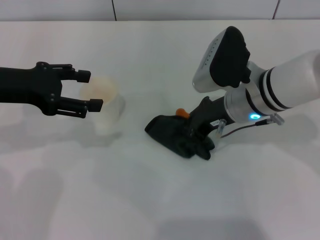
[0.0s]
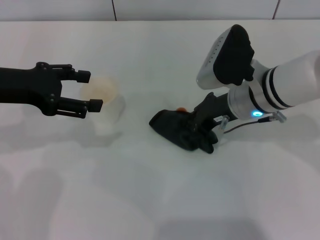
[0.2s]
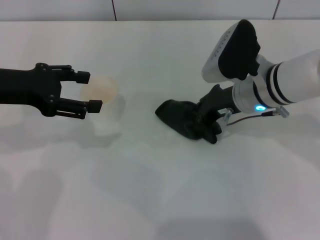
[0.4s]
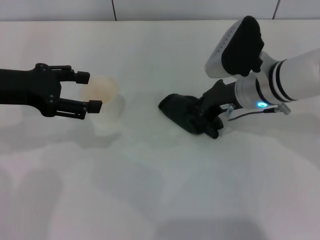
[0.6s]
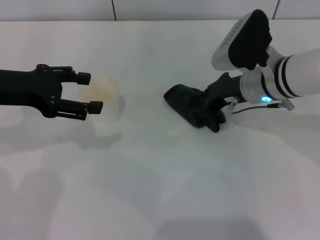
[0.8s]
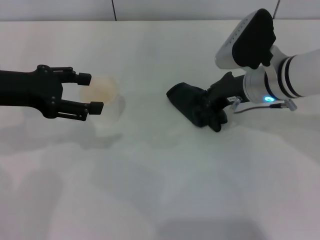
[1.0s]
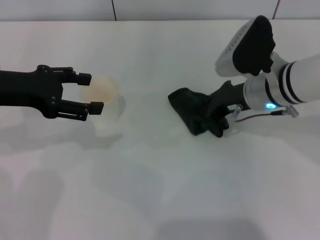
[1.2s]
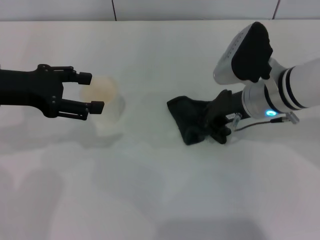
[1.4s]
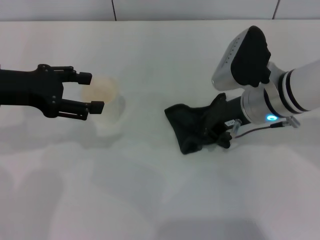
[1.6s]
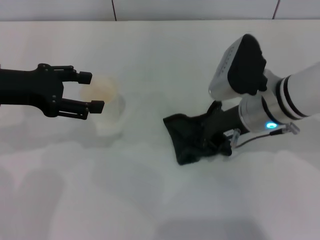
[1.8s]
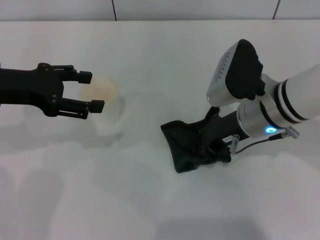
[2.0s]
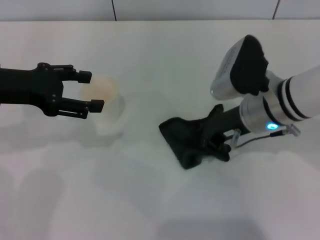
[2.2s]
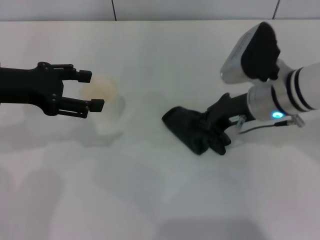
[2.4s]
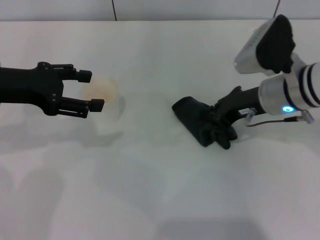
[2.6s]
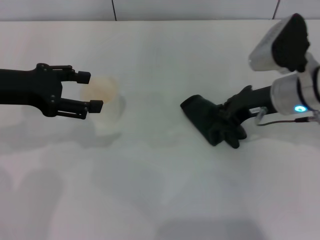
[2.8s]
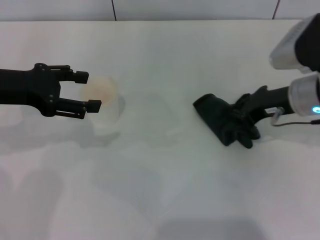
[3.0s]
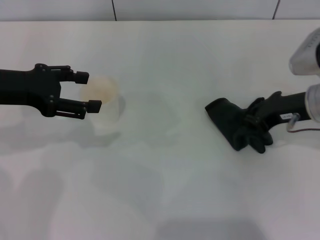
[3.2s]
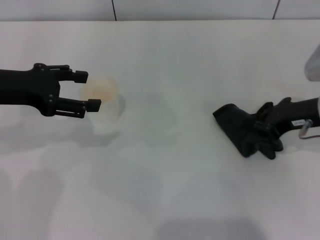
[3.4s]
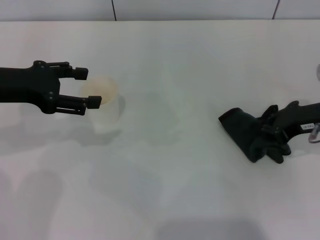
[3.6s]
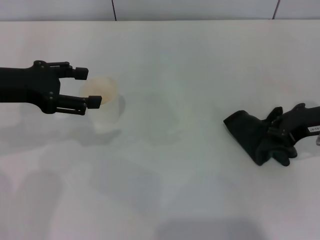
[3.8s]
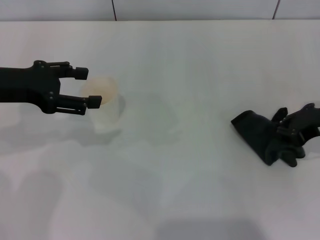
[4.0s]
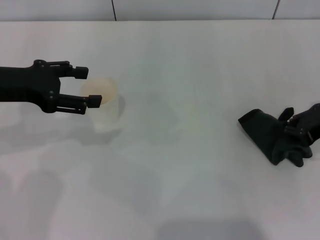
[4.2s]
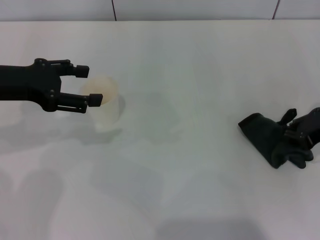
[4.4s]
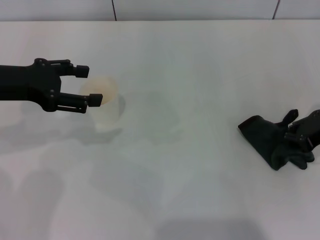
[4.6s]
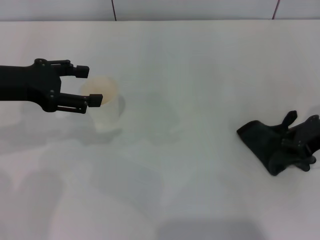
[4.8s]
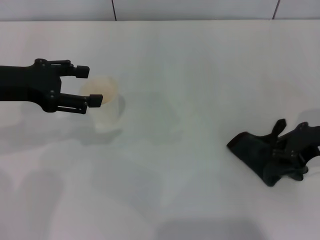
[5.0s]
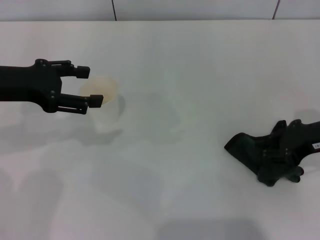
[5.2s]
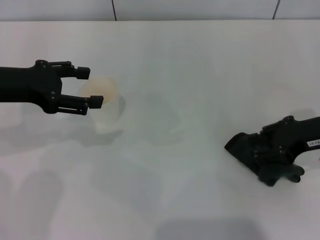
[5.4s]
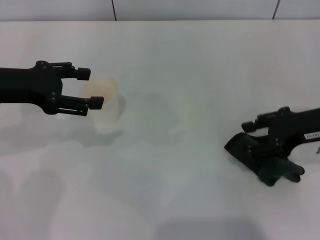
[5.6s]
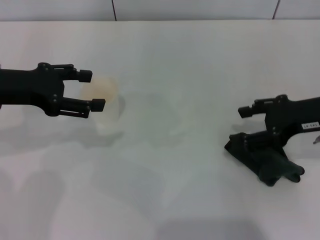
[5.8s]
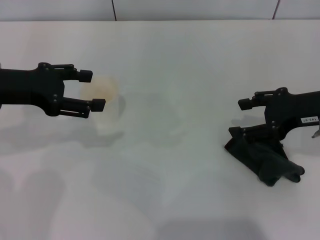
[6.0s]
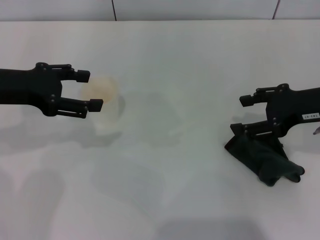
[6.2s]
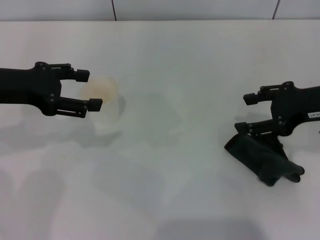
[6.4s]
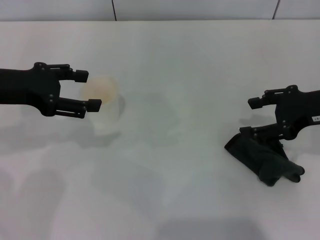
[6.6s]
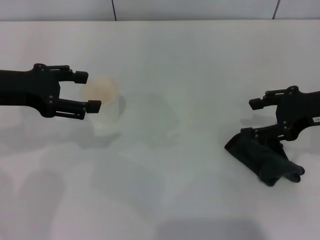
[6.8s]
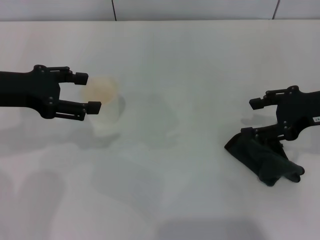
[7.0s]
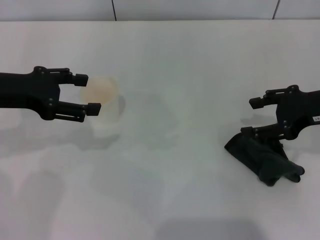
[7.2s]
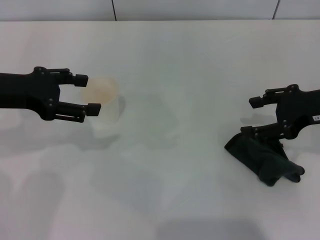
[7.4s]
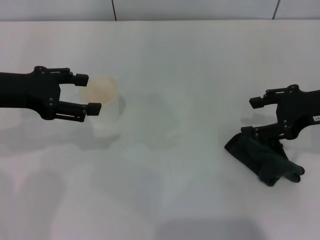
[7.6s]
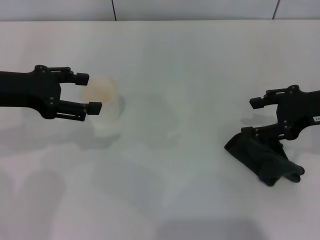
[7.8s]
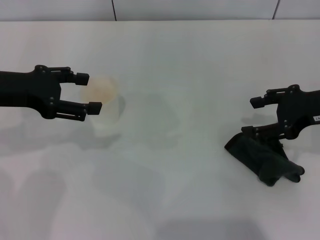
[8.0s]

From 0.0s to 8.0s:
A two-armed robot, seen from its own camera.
Step, from 0.0s to 2.6s: Wipe the stains off the table with the right gripper.
Step, from 2.8s to 5.8s: Place the rag on the table with the right gripper.
From 0.0s to 1.6s: The grippers make only small movements.
From 1.6s to 3.2s: The right gripper heads to the right, covering approximately 10 cm.
From 3.2s to 4.8s: The right gripper heads to the right, covering some 5 cm.
From 4.8s to 6.4s: The right gripper shifts by about 5 cm, and opens up.
From 6.4s to 8.0s: Neither gripper changes place.

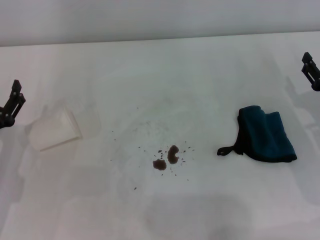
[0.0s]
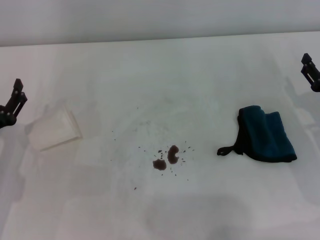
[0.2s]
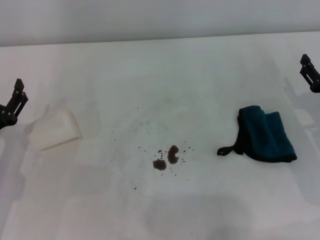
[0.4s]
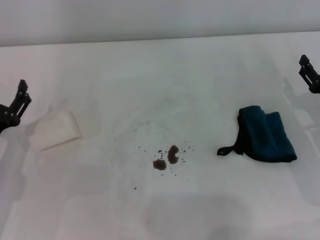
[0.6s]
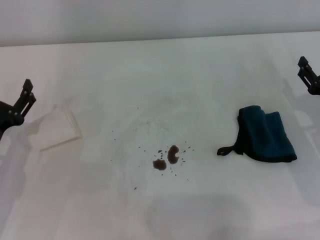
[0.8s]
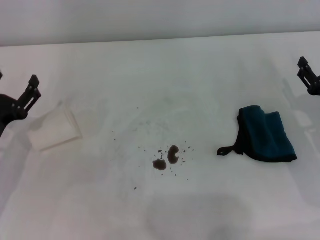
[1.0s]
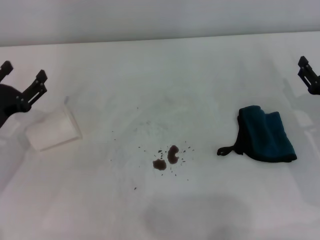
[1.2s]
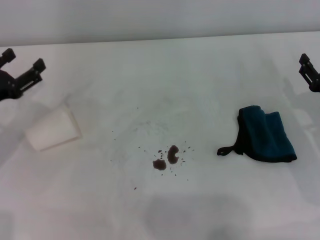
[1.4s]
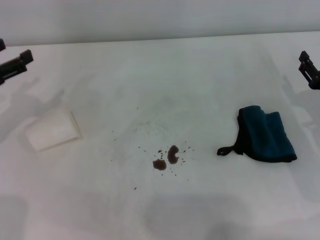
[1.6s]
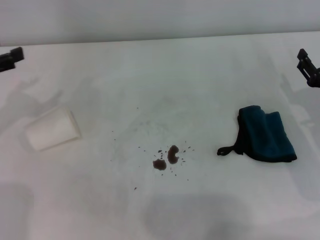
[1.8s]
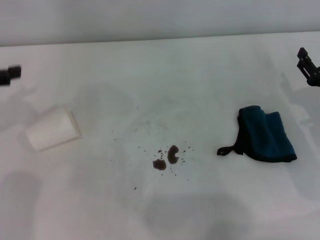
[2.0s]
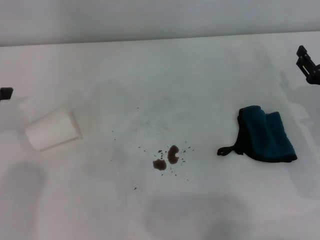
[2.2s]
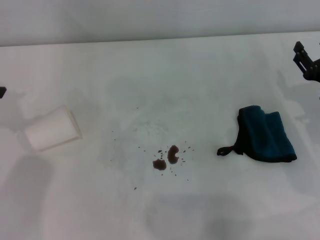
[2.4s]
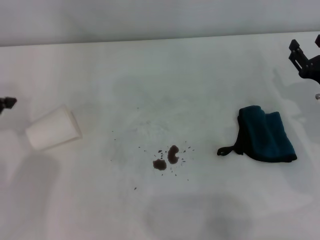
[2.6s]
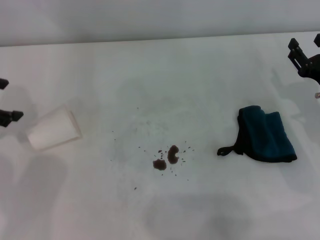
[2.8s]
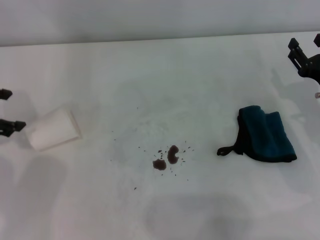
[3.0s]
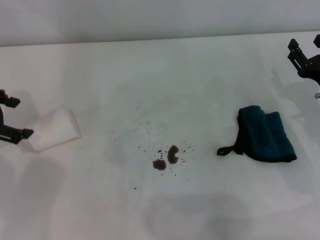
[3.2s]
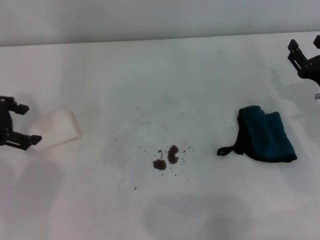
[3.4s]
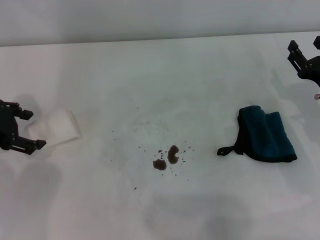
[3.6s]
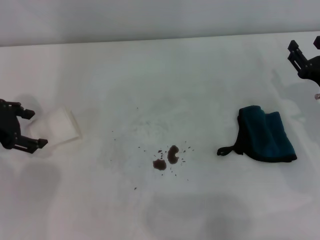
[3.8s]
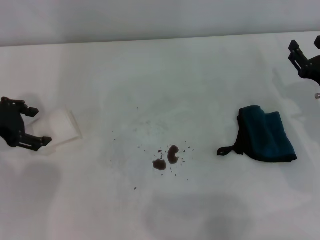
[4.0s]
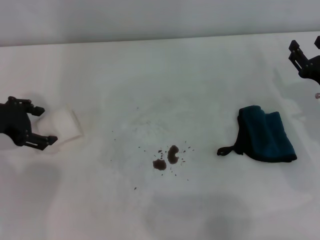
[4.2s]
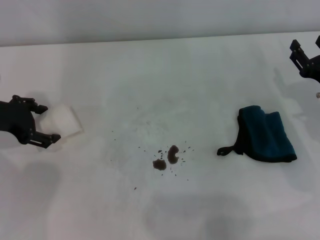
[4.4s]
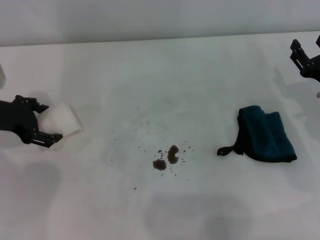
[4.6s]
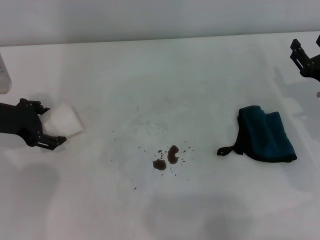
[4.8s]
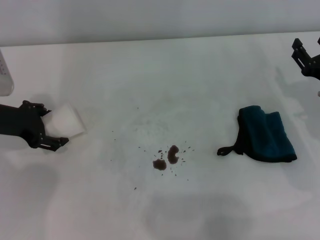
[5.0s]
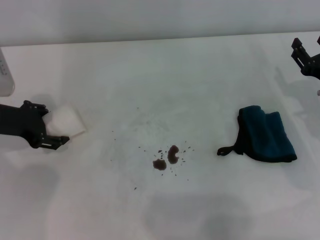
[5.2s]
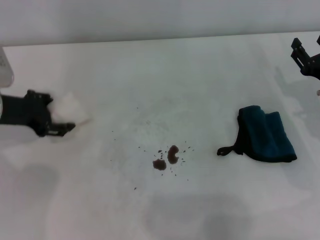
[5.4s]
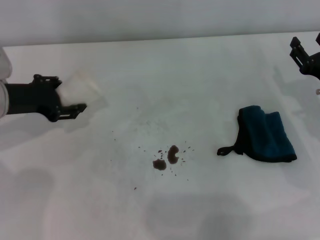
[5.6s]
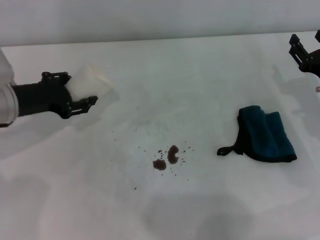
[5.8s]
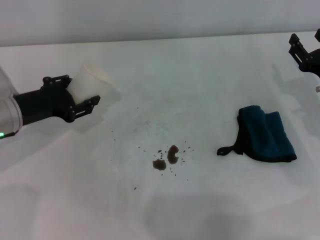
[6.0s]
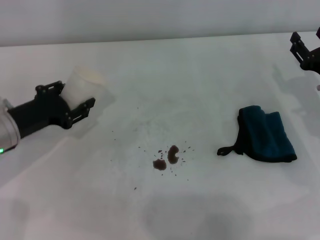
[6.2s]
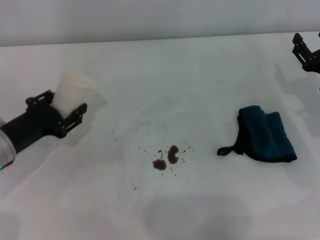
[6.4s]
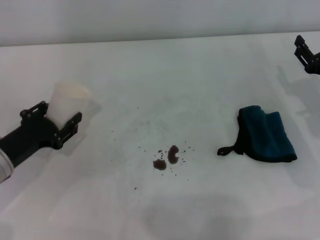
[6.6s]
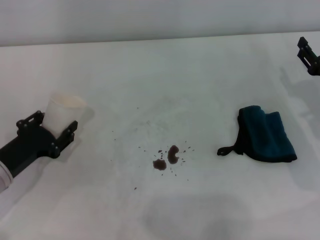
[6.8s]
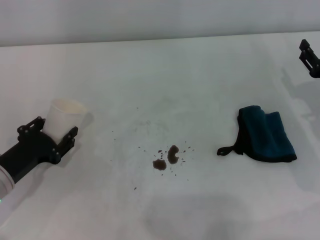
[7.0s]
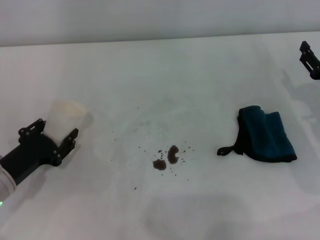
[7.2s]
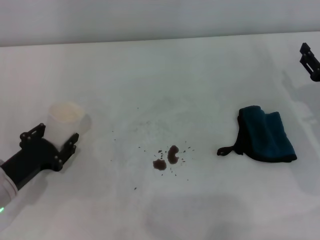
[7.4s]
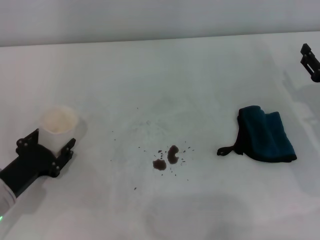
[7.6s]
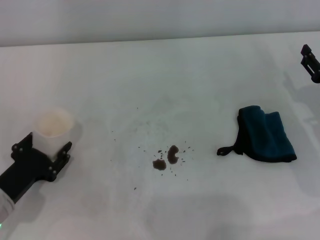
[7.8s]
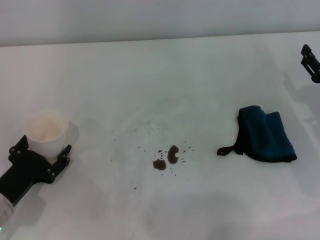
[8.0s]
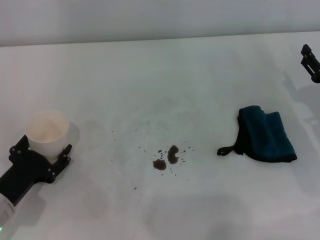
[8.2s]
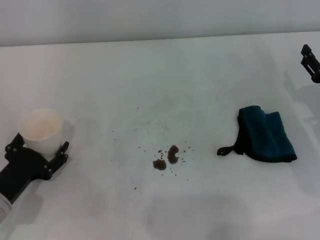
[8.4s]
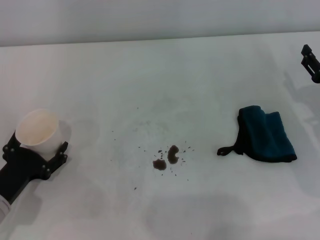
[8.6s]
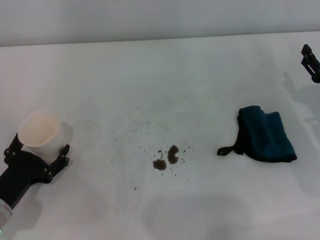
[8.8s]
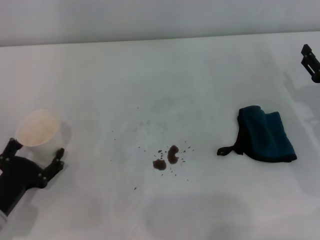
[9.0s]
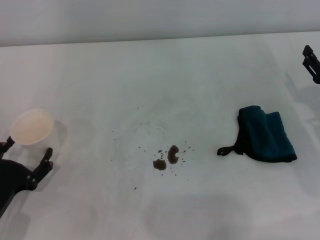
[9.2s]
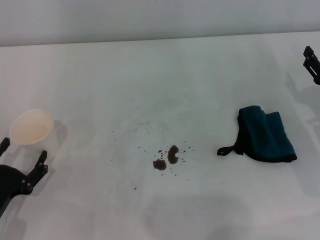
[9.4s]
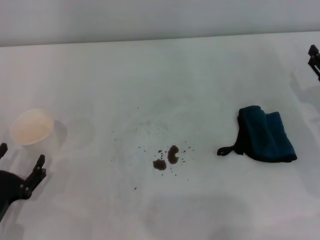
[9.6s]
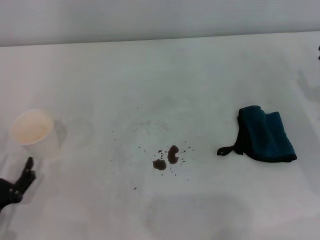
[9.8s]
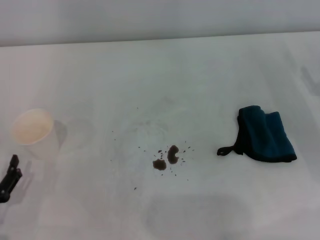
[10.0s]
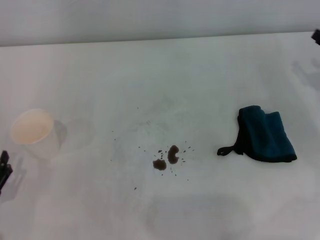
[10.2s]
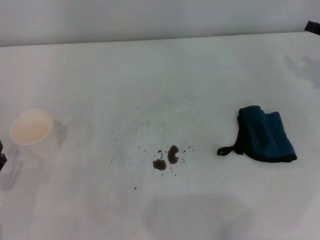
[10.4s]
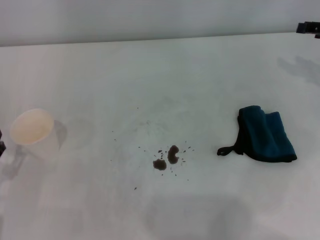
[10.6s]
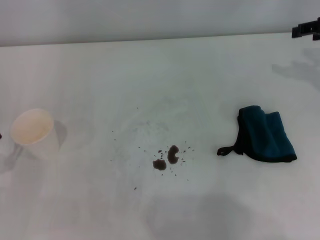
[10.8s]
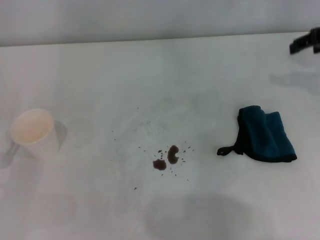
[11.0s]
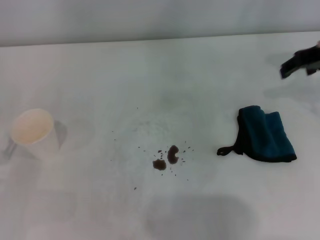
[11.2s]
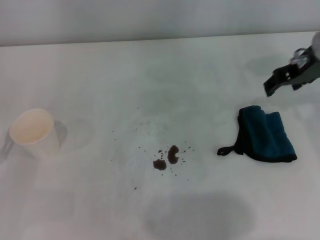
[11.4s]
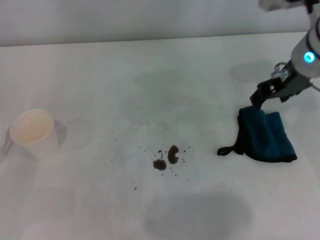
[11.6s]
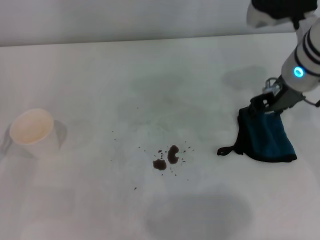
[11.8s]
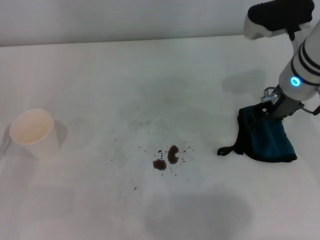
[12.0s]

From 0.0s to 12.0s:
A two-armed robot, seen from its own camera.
Step, from 0.0s to 5.0s: Grasp the paper cup with the left gripper.
Step, from 5.2s to 9.0s: Stand the paper cup upright with the left gripper.
From 0.0s to 1.6s: The left gripper heads upward, forward and to the left, covering roughly 15 cm.
From 1.6s to 3.0s: The left gripper heads upward, covering roughly 5 cm.
From 3.0s to 4.4s: The left gripper goes about 5 cm downward.
From 4.4s to 6.0s: The left gripper ends up some 5 cm from where it was, and closes.
From 6.0s to 7.6s: The left gripper moves backward and downward, some 15 cm.
From 7.6s to 9.0s: The left gripper opens.
From 9.0s to 10.4s: The right gripper shifts about 10 cm upward and forward.
From 10.4s to 12.0s: The right gripper travels to the left by roughly 20 cm.

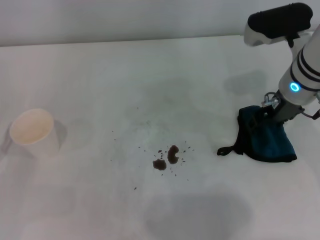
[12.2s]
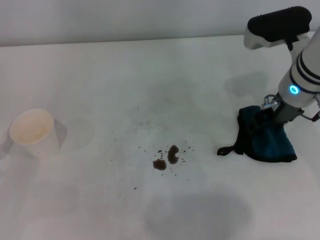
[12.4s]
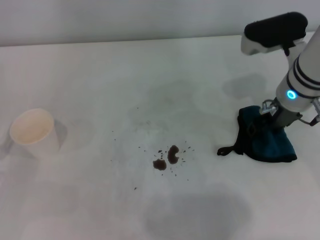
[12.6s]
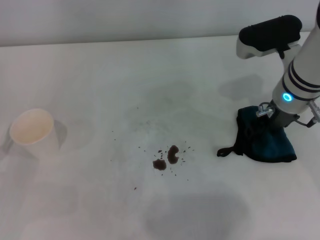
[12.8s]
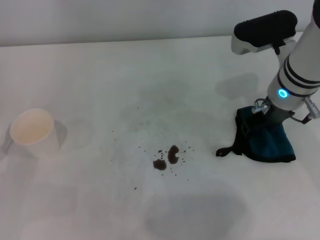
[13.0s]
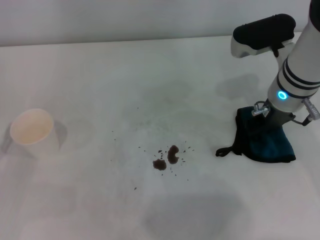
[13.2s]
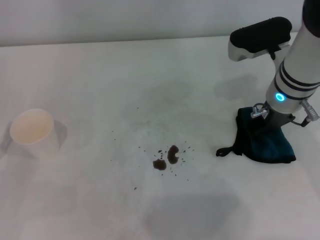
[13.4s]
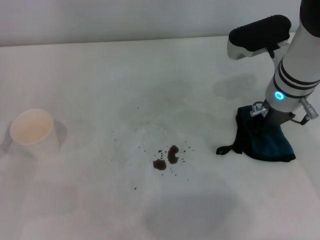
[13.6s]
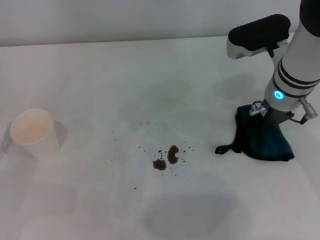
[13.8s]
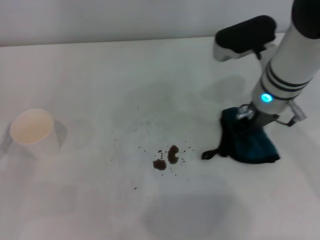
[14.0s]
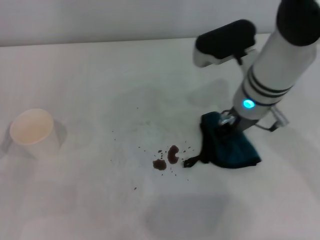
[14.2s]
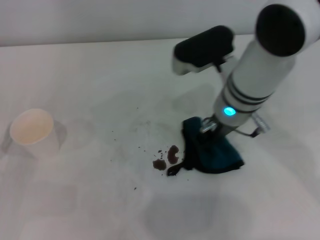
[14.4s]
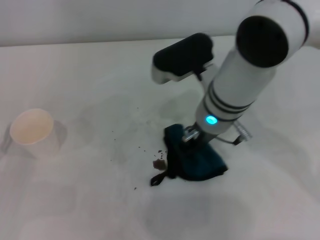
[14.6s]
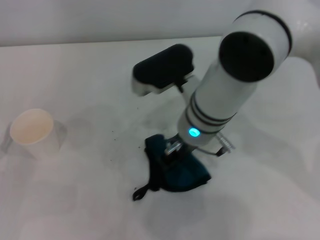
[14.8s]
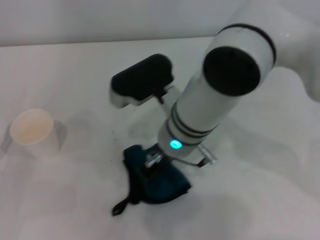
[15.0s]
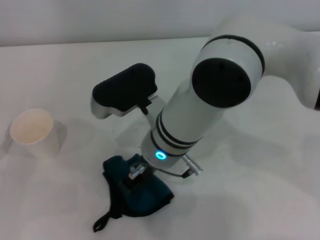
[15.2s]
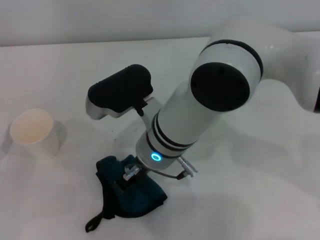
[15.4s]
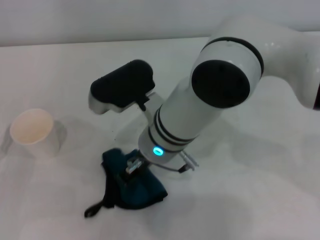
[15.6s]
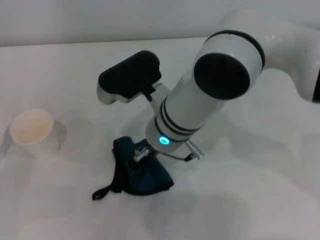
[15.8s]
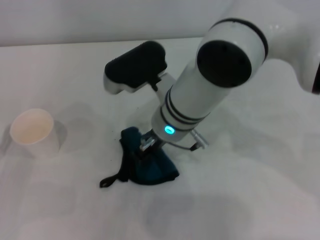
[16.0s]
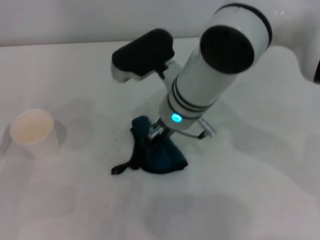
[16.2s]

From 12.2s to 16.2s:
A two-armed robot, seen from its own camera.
From 12.2s to 13.6s: The right gripper closes up.
From 13.6s to 14.8s: The right gripper moves to the left, about 15 cm.
From 14.8s to 16.2s: There are only small adjustments of the grippers.
